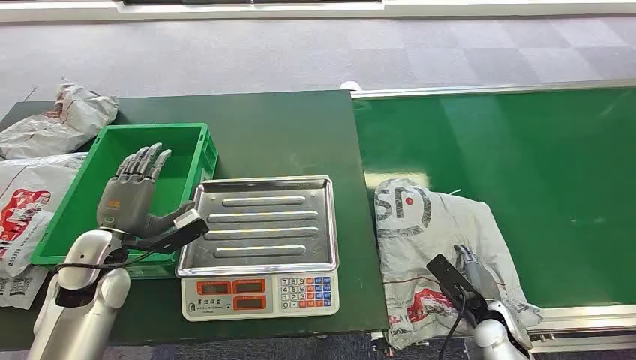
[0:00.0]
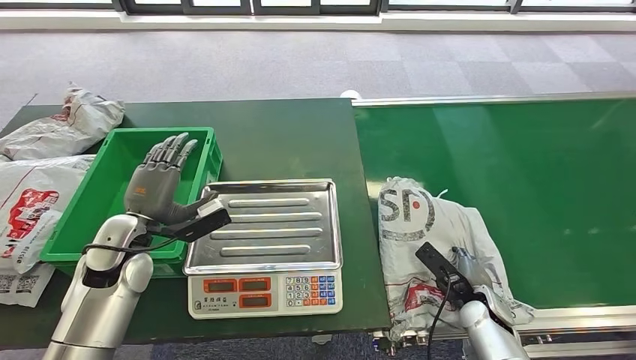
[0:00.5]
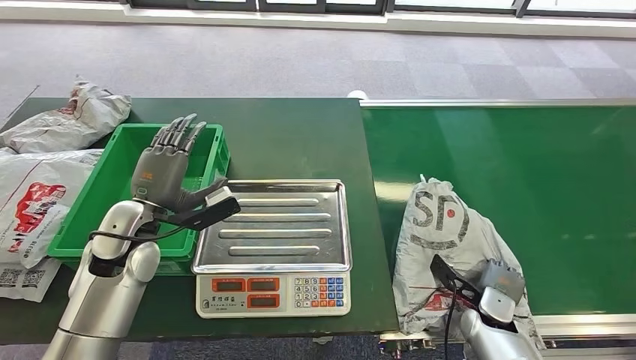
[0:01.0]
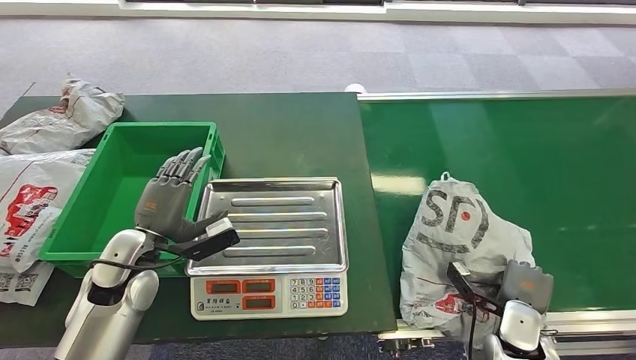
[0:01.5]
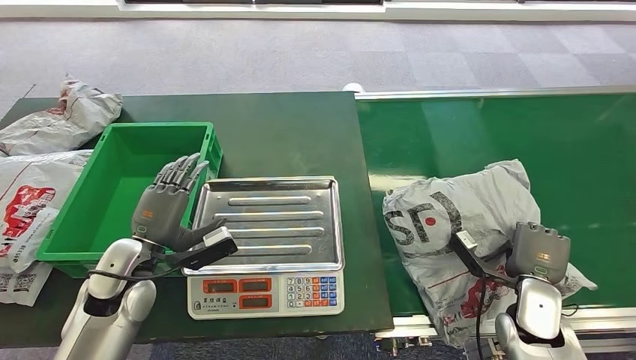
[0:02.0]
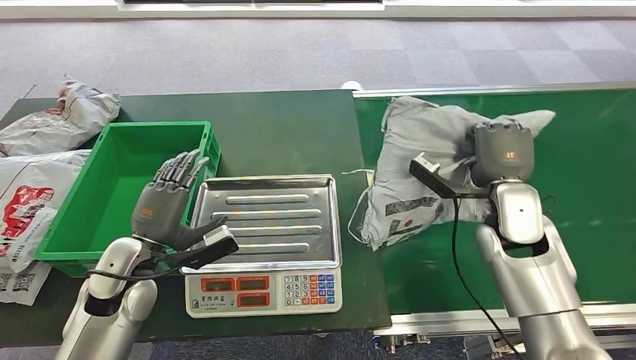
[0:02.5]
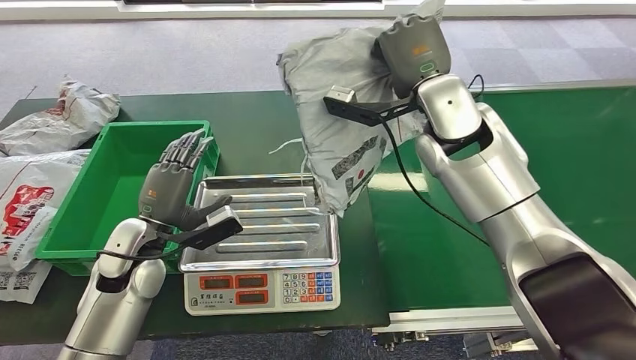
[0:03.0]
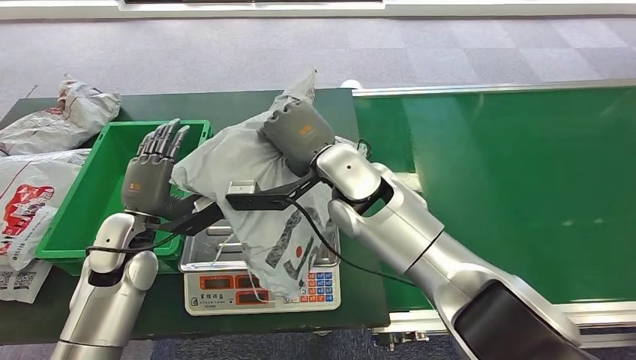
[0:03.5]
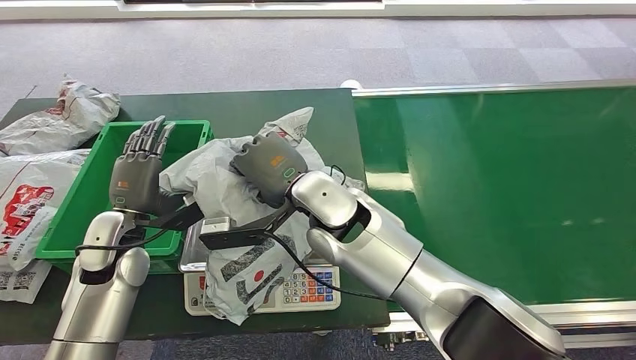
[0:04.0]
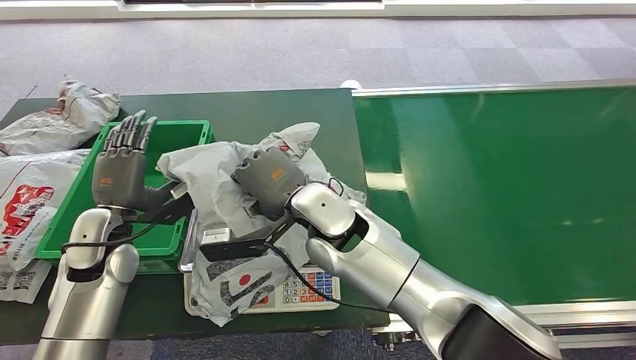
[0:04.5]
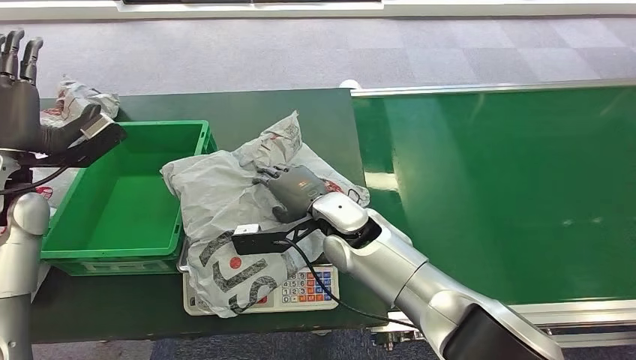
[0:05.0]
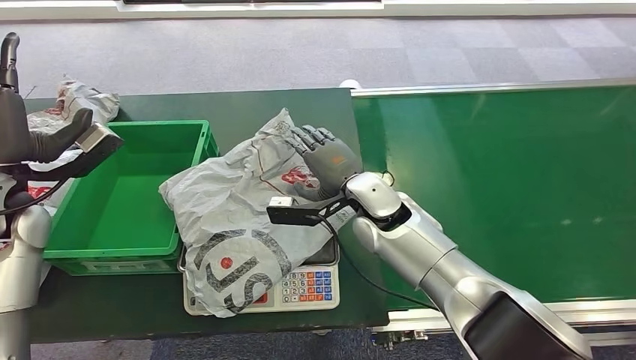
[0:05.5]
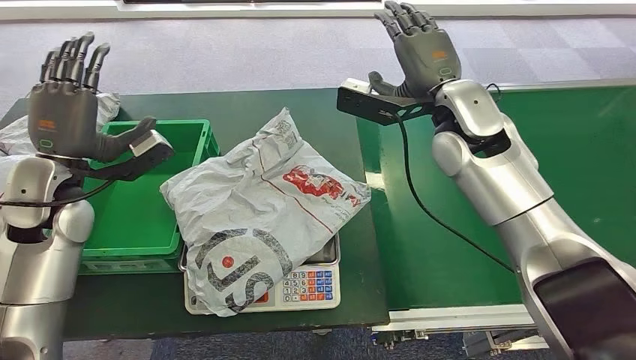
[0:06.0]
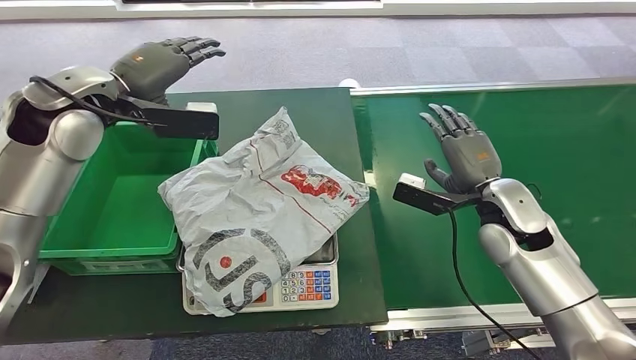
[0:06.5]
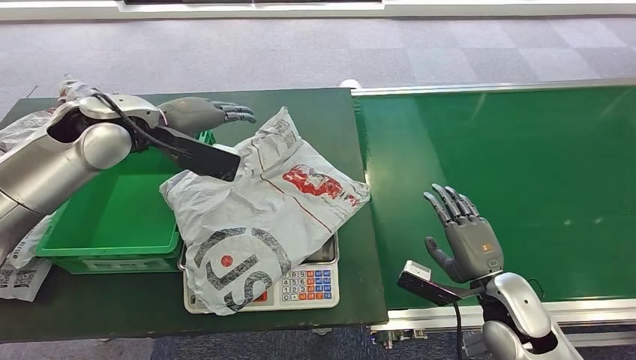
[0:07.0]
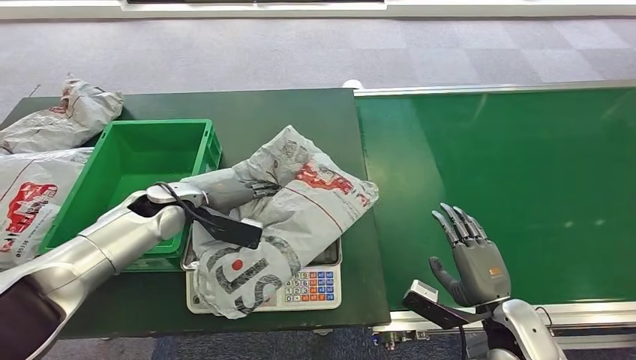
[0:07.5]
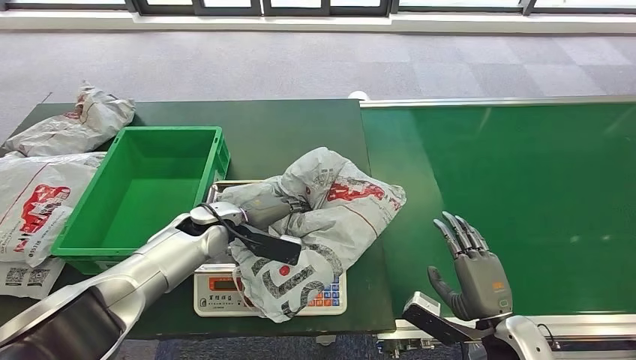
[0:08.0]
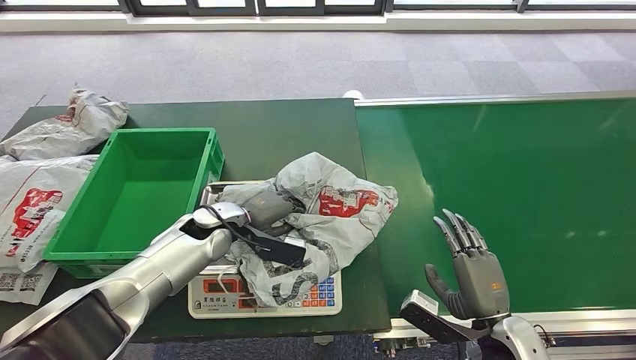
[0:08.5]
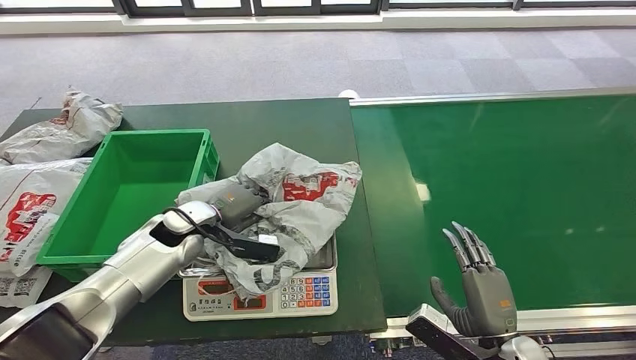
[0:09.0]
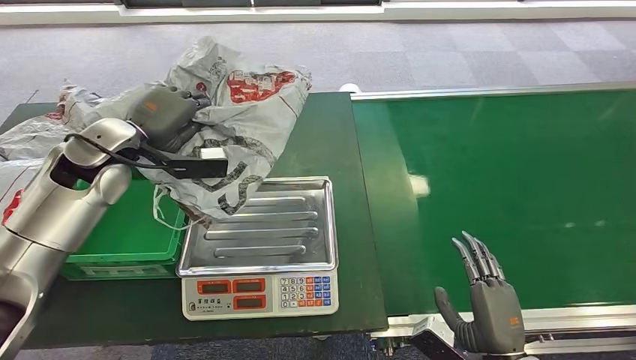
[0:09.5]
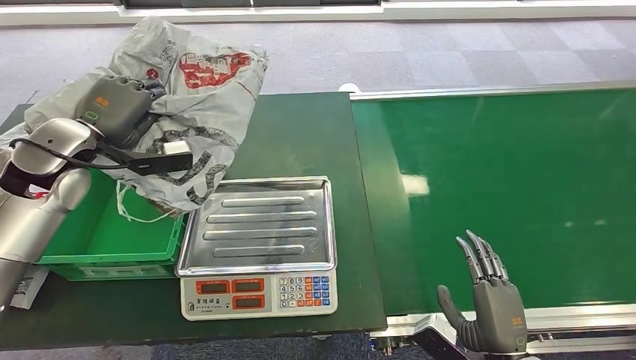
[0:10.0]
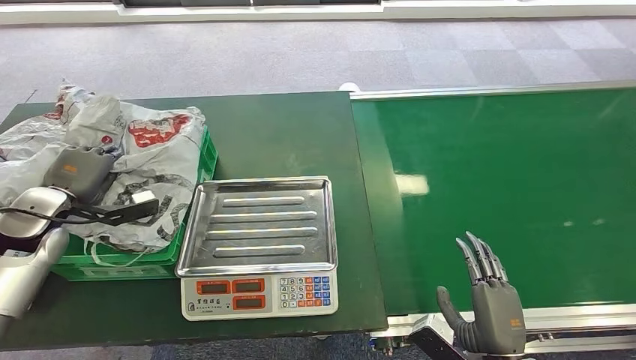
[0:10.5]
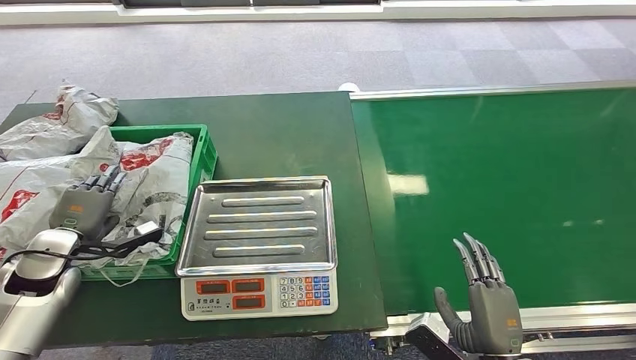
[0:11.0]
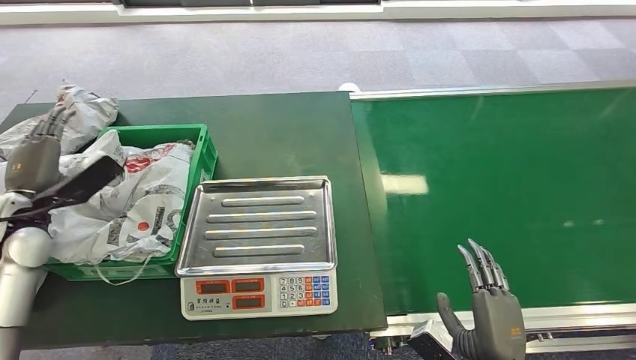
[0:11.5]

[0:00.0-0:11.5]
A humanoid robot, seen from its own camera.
Task of the whole recording: Weigh the package on the weighing device and place it in the left basket.
Step, 0:00.0 to 0:02.0: Pick up the package from the conveyor belt.
Step, 0:02.5 to 0:05.5: Place the package onto the inbound machine.
Step, 0:06.0 to 0:09.5: Pick up the package from the inbound machine.
Step, 0:10.0 to 0:11.5: Place the package into the parcel locker.
